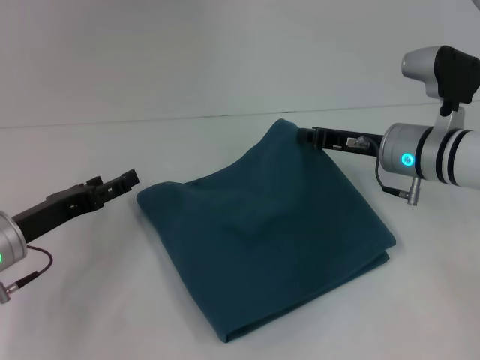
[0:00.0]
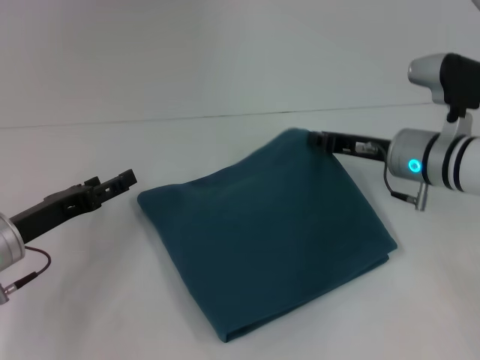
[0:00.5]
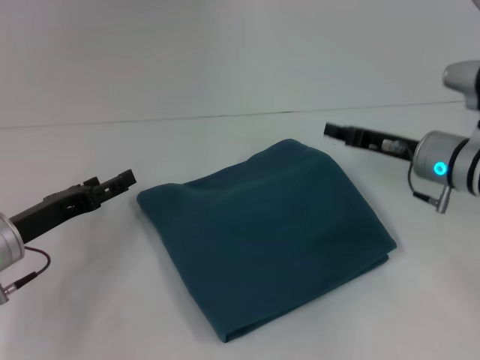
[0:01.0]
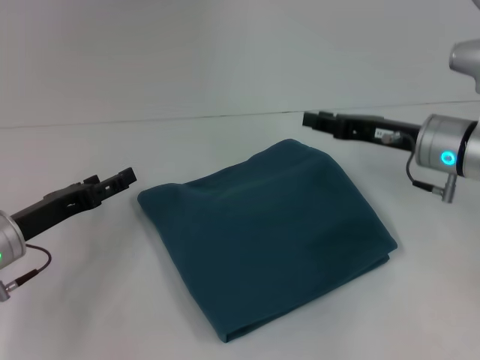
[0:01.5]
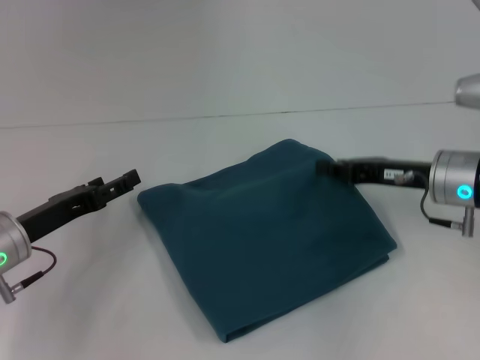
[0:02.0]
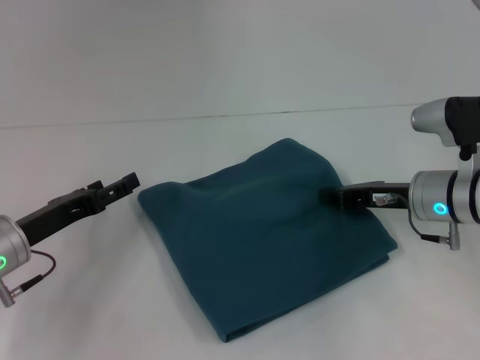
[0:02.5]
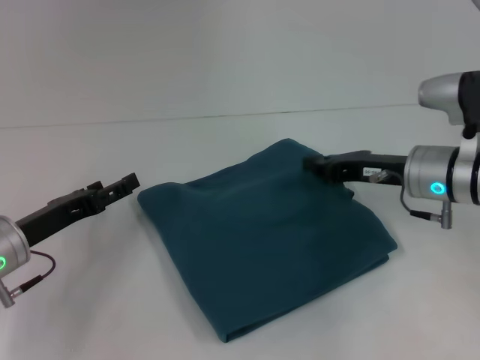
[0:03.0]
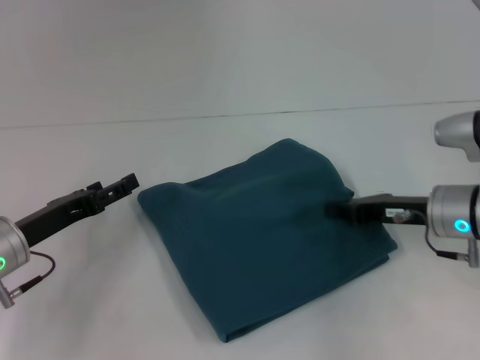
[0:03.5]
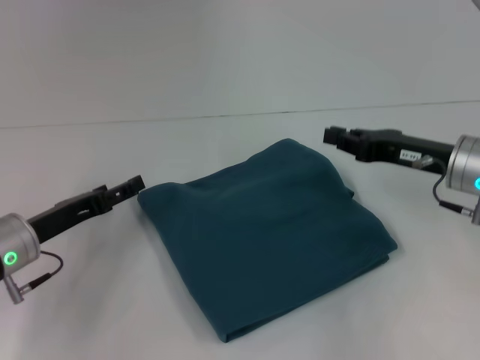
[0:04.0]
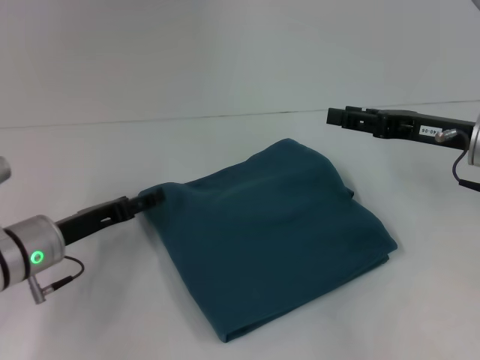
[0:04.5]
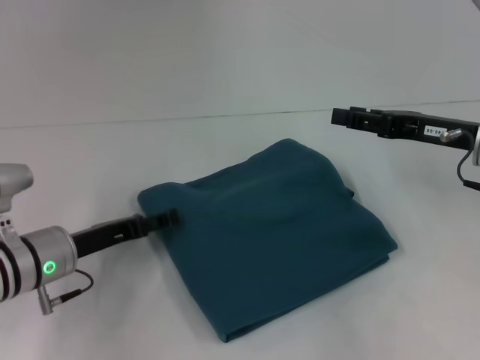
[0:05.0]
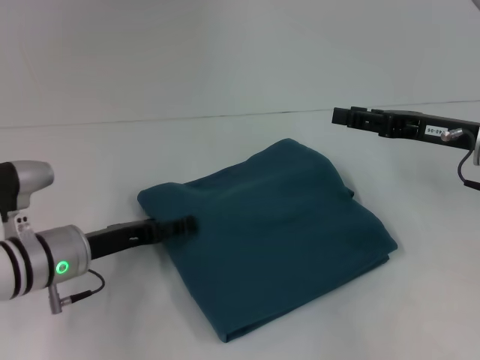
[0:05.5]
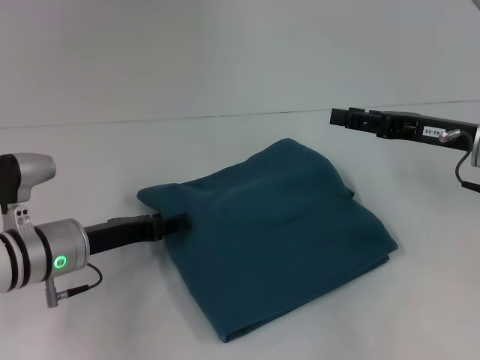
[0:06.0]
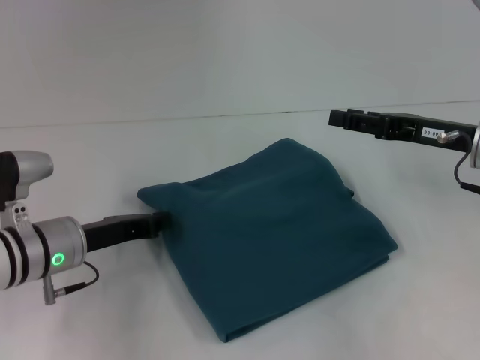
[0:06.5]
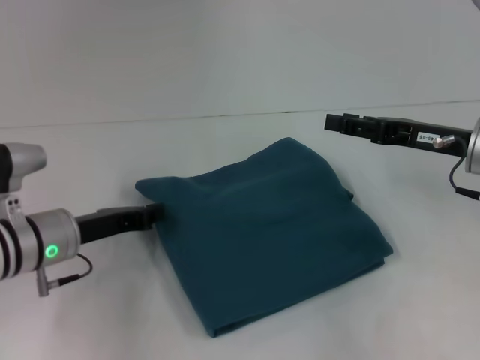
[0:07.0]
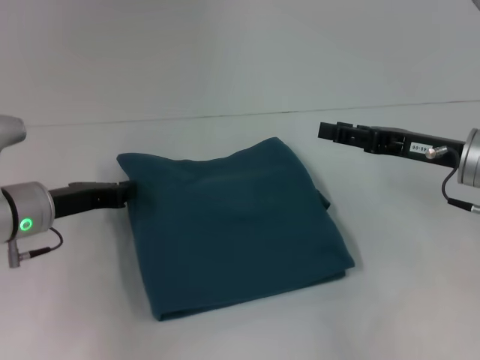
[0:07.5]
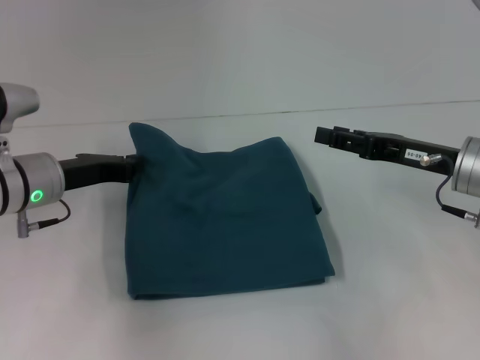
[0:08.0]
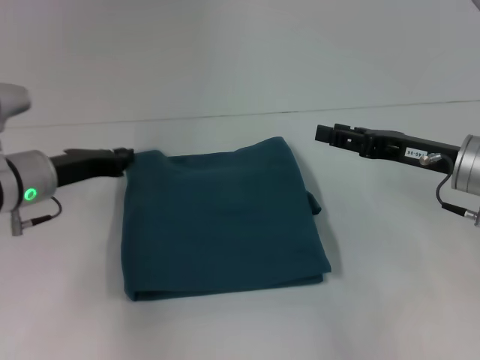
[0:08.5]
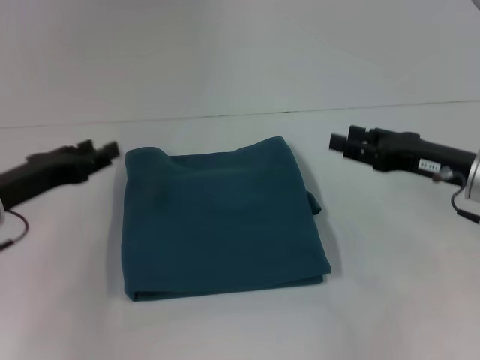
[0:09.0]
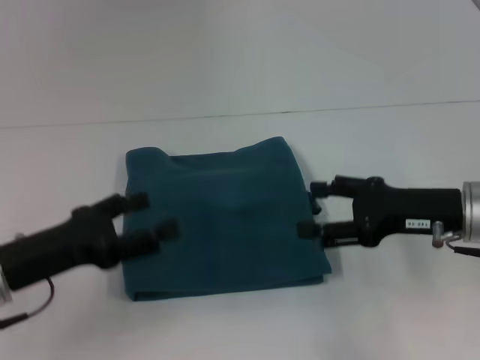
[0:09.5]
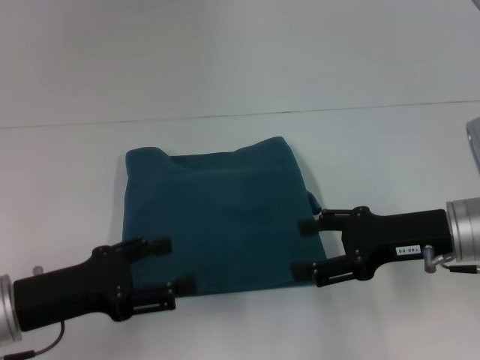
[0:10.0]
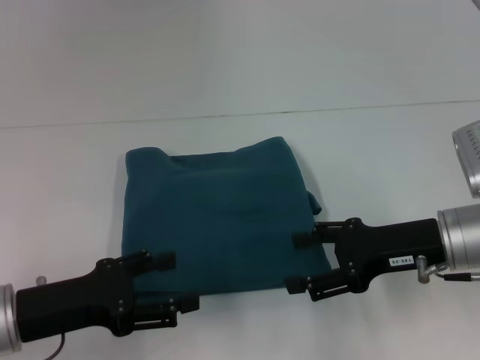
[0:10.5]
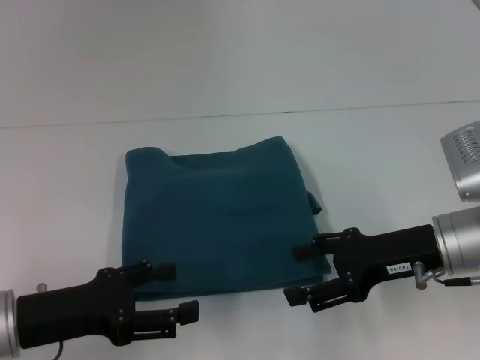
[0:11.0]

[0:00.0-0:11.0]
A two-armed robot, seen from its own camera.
0:00.0 to 0:02.0: The right gripper ends up roughly 5 cm from where it was, and opens, then closes once more.
0:02.0 to 0:03.5: The grippers make only small movements.
0:03.5 to 0:05.5: The right gripper is displaced upward by about 5 cm, and opens up. The left gripper goes roughly 5 cm to the right.
0:05.5 to 0:07.5: The left gripper changes place by roughly 5 cm, and closes.
0:07.5 to 0:09.0: The left gripper ends up roughly 5 cm from where it was, and opens its fingers.
0:09.0 to 0:11.0: The right gripper changes place by about 5 cm, and opens its fingers, while the left gripper shifts about 10 cm backward, and opens its fingers.

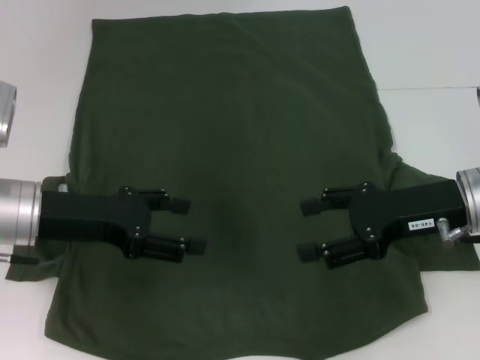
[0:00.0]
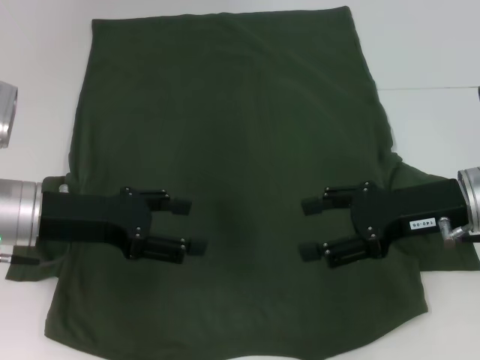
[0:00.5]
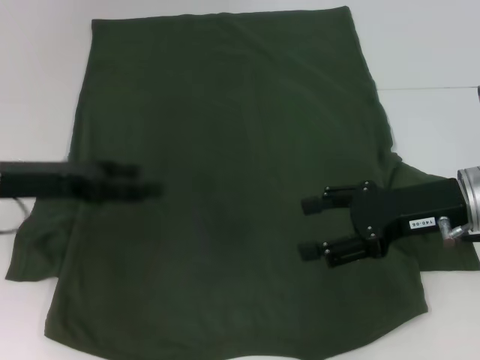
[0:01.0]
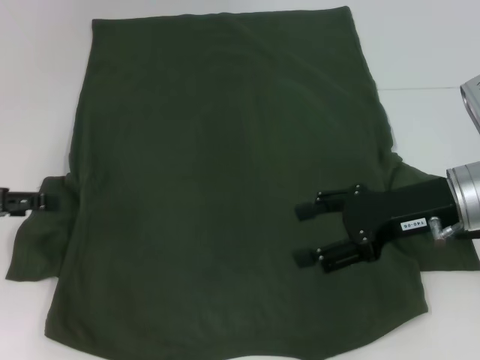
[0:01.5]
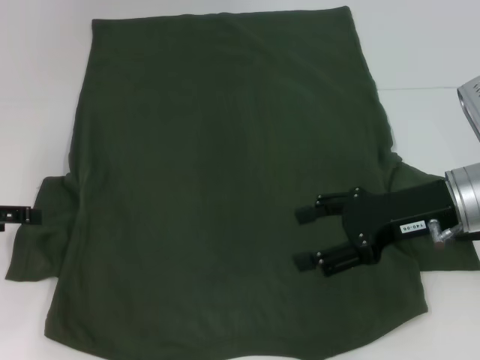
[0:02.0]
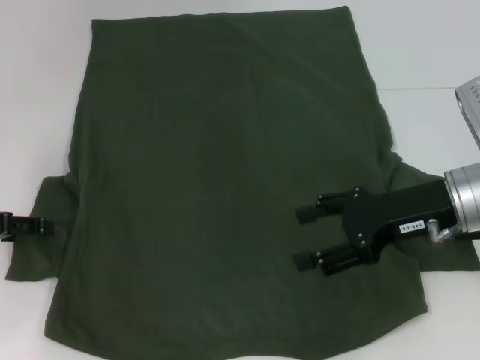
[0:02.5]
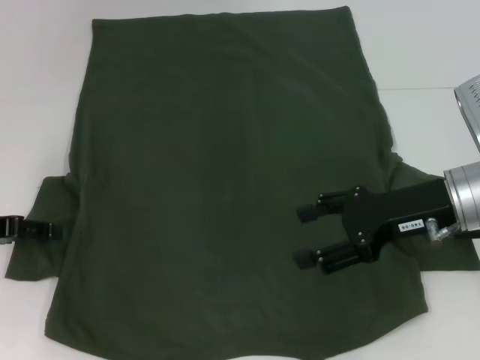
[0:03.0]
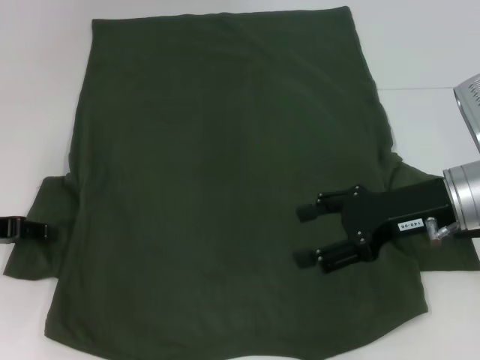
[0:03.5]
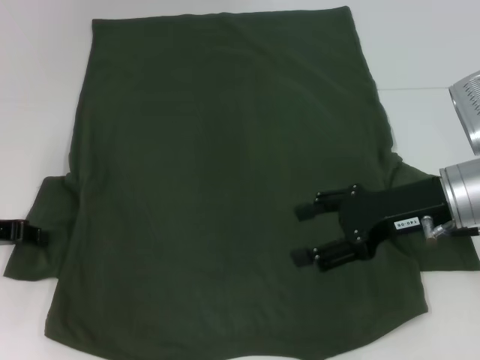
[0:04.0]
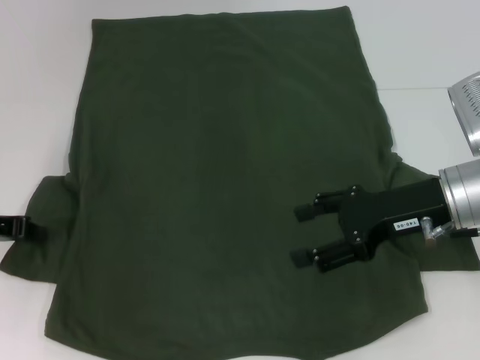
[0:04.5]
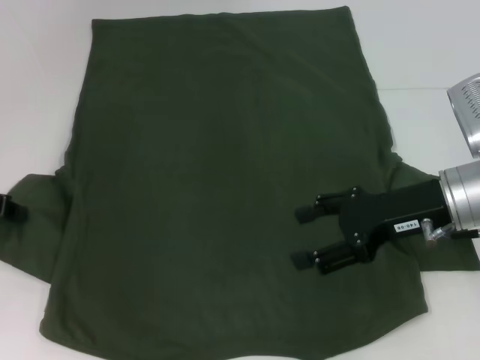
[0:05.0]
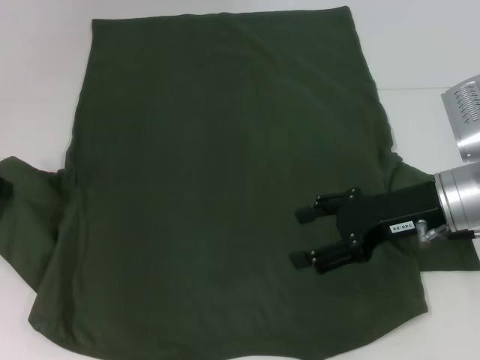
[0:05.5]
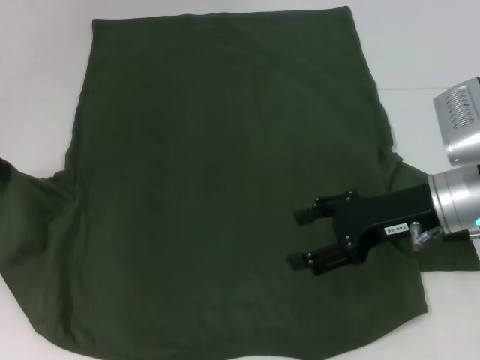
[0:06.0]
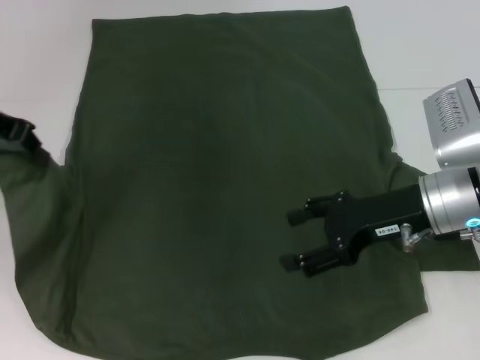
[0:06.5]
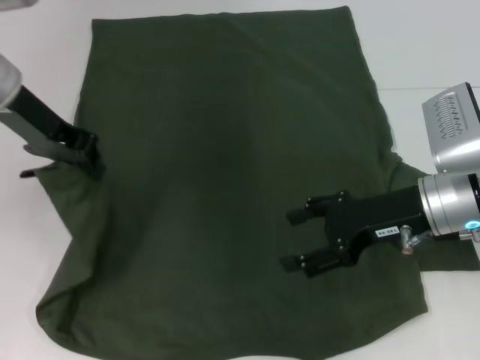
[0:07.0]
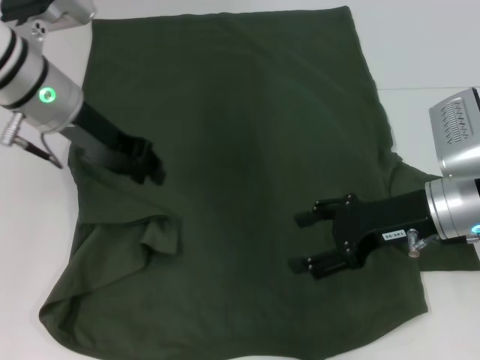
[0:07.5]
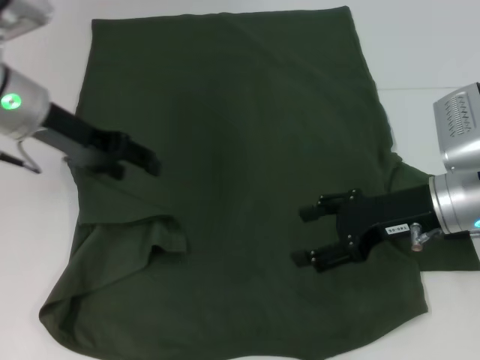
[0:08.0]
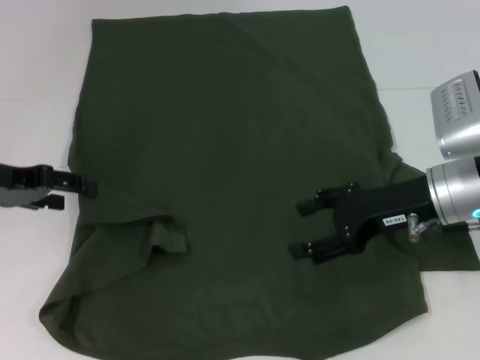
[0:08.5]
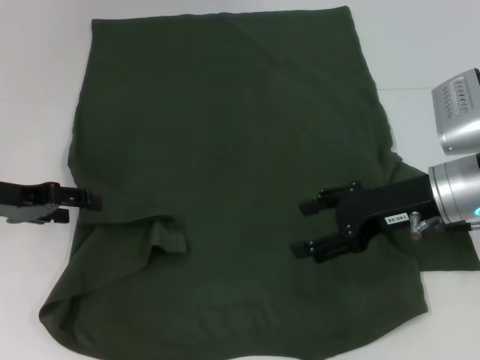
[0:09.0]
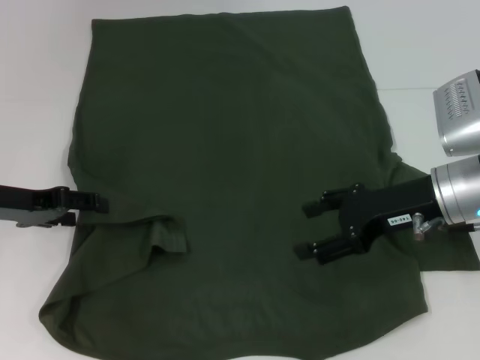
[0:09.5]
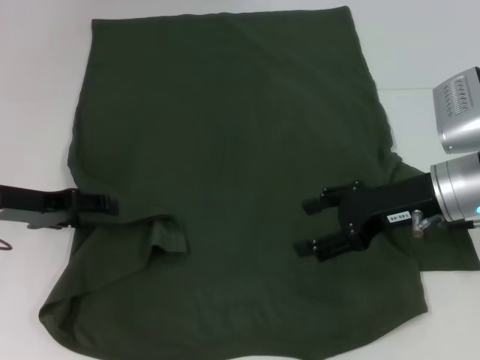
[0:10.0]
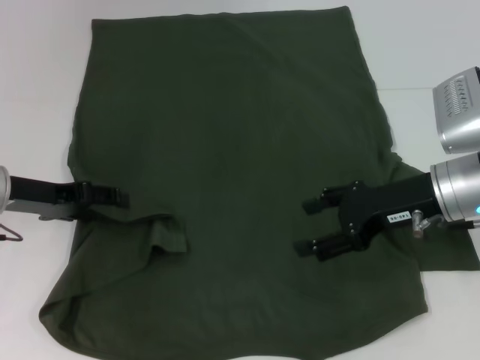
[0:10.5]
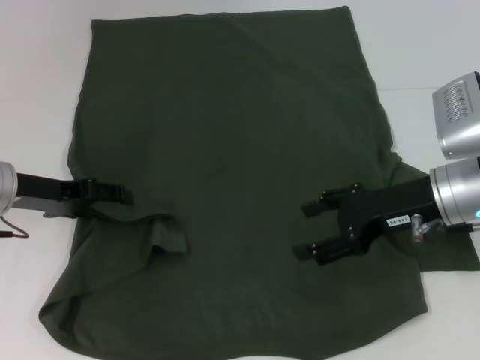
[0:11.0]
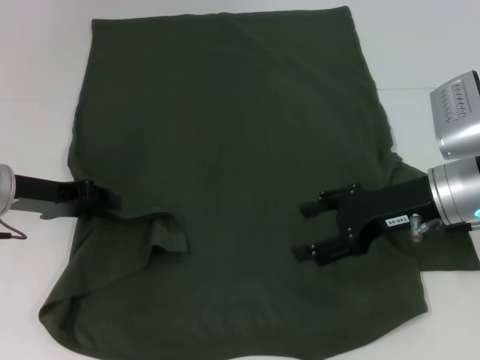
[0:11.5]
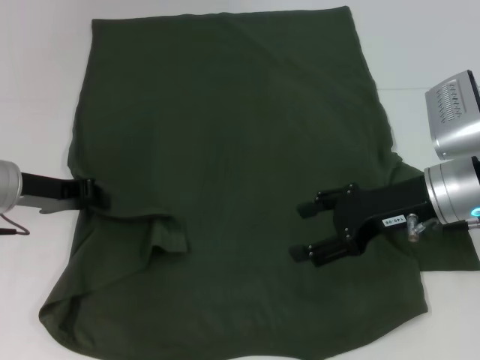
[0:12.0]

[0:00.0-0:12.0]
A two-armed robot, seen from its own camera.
0:00.0 to 0:02.0: The left gripper travels to the left by roughly 15 cm.
0:02.0 to 0:04.0: The left gripper closes.
0:04.0 to 0:06.0: The left gripper goes about 10 cm upward, and closes.
0:06.0 to 0:08.0: The left gripper moves to the right, roughly 10 cm, and opens its fingers.
0:08.0 to 0:10.0: The left gripper moves downward and to the left, approximately 10 cm.
0:10.0 to 0:12.0: The left gripper closes its fingers.

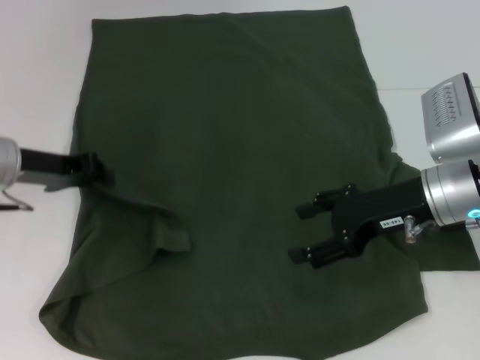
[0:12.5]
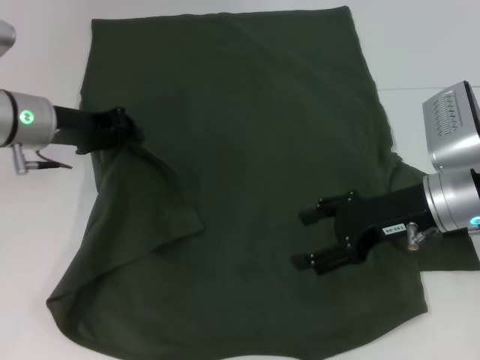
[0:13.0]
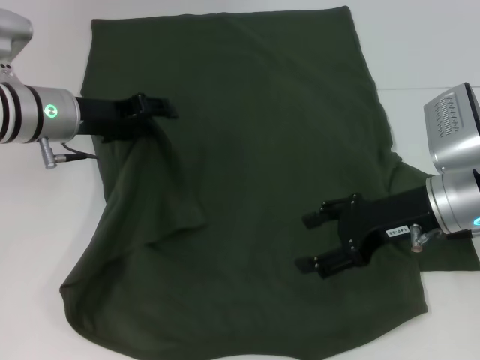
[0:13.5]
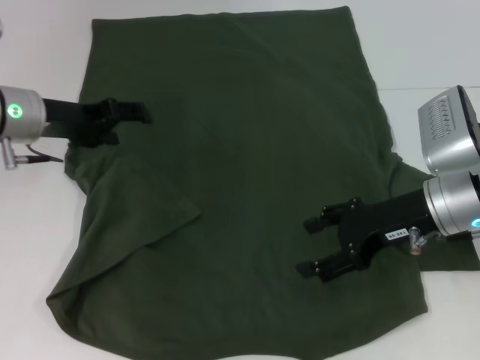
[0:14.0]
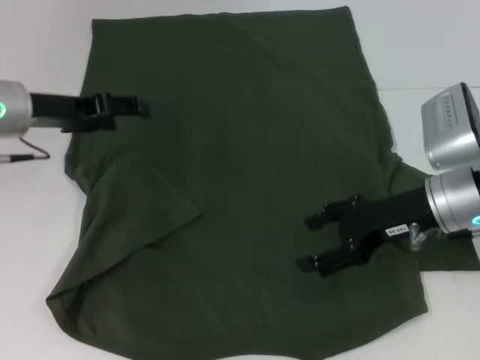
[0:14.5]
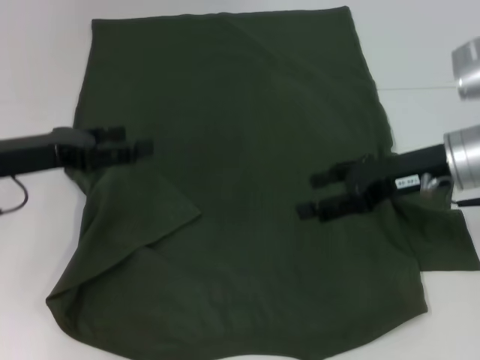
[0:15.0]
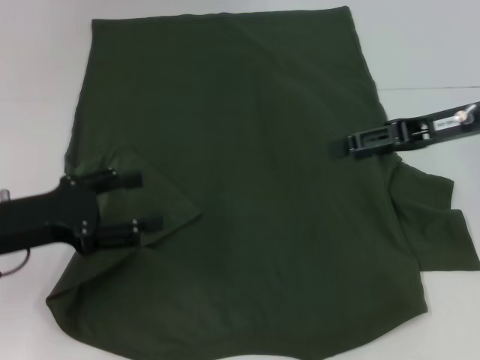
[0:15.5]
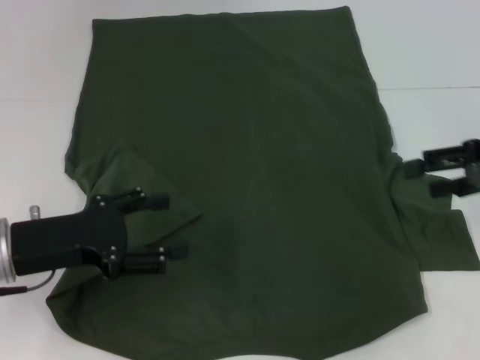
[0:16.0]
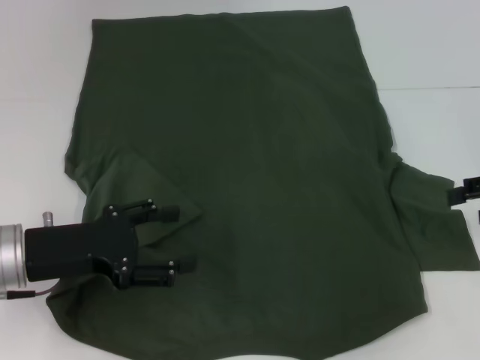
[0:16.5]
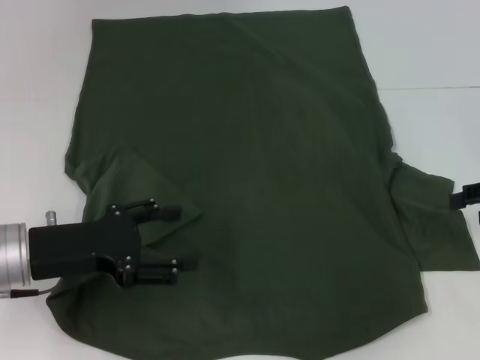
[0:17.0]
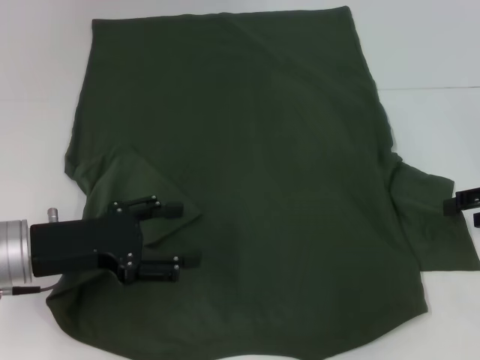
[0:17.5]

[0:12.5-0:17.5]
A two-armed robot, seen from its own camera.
Step, 0:12.5 to 0:15.0: Fold the bottom left sleeve with your left hand.
0:12.5 to 0:15.0: The left gripper shifts by some 5 cm, and opens.
0:15.0 to 0:17.5: The left gripper shifts roughly 5 cm backward. Meanwhile the right gripper shifts some 15 cm to the right.
